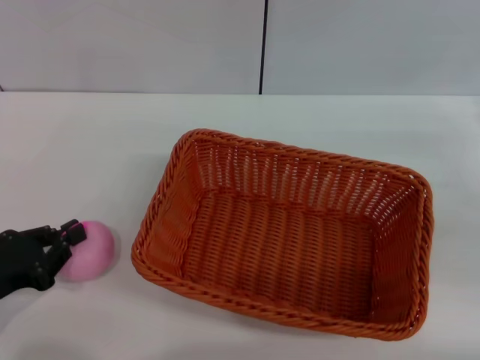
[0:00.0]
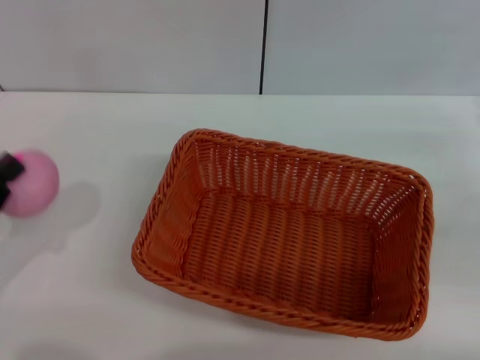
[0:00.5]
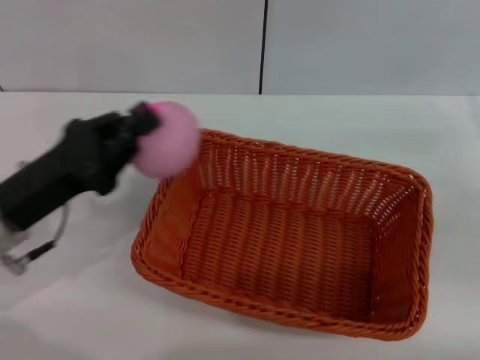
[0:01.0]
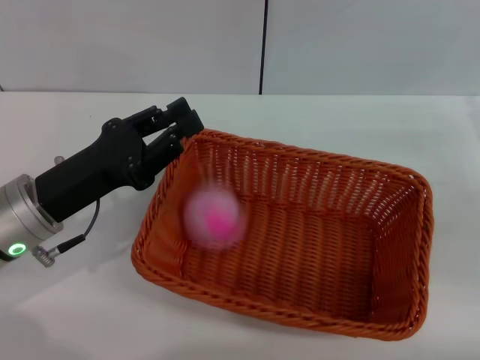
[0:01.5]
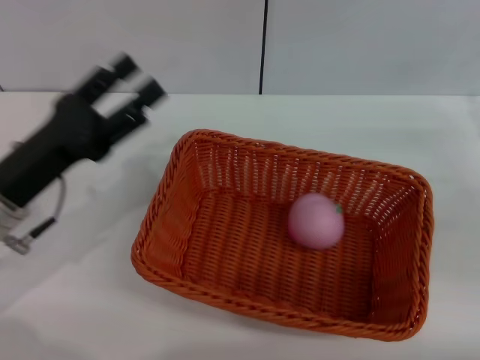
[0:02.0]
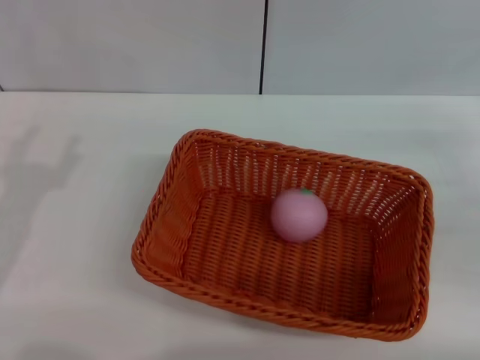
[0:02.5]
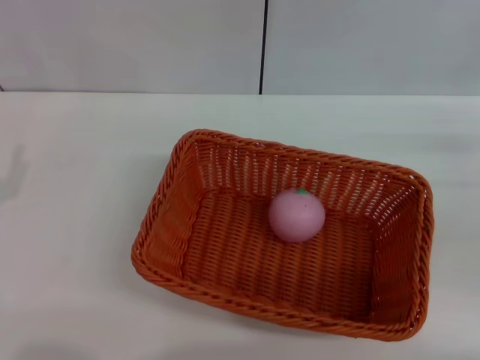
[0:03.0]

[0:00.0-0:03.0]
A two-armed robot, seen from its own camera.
Step, 0:01.0 to 0:01.5: Place the peach into the basket with the left gripper.
0:00.0 to 0:01.5: The left gripper shifts approximately 10 cm to the right and forward.
0:01.5 to 0:03.0: The left gripper goes approximately 10 cm to the left and backward, and opens its fingers.

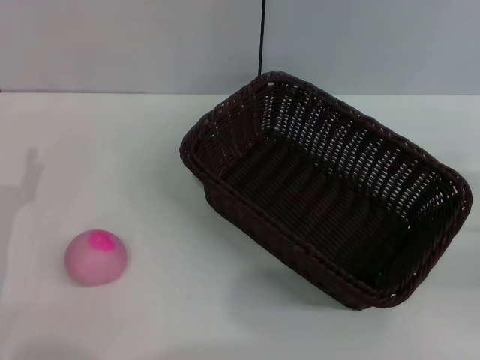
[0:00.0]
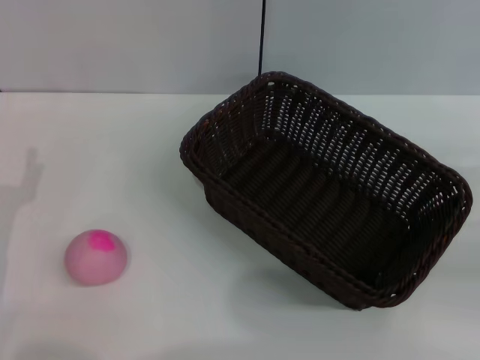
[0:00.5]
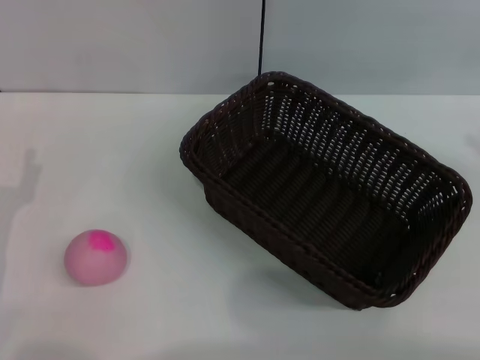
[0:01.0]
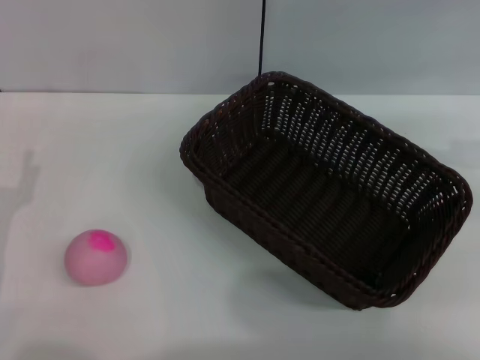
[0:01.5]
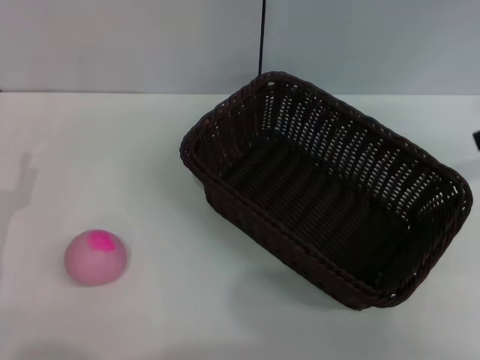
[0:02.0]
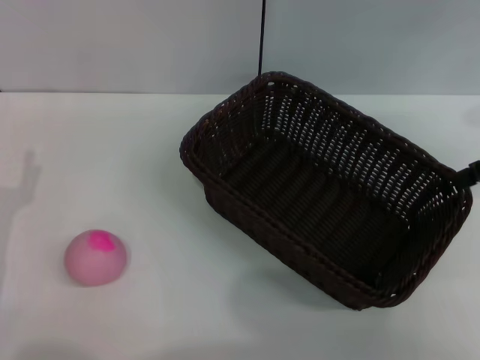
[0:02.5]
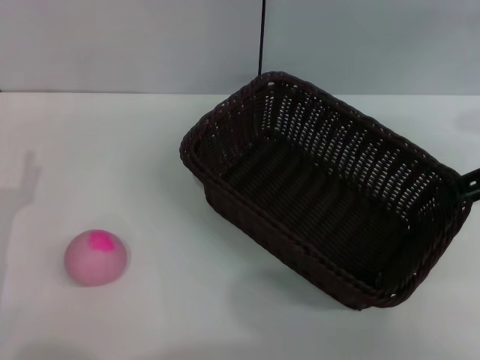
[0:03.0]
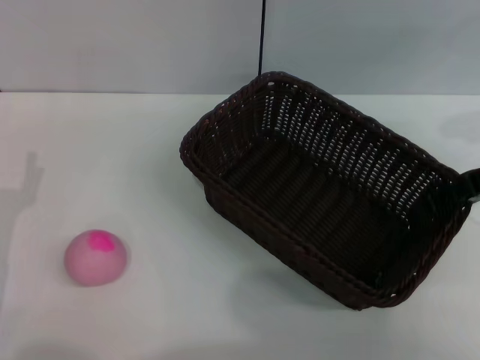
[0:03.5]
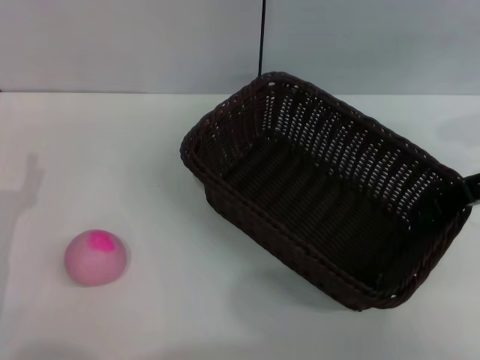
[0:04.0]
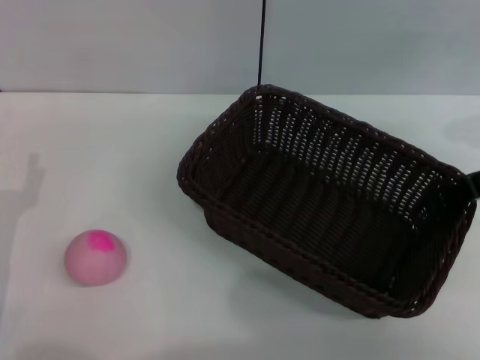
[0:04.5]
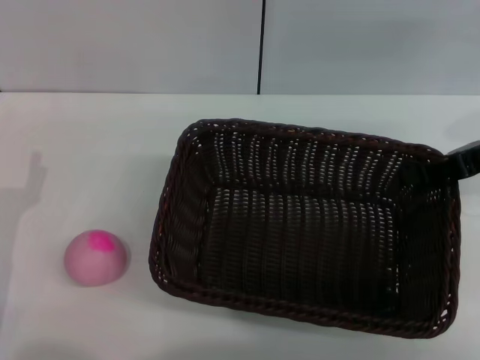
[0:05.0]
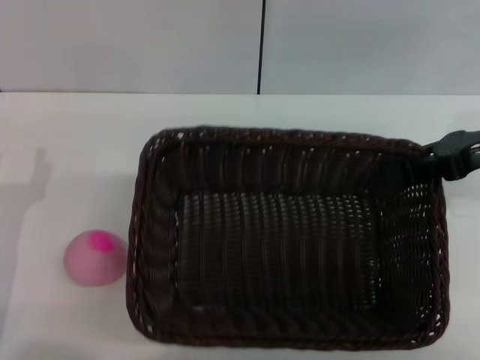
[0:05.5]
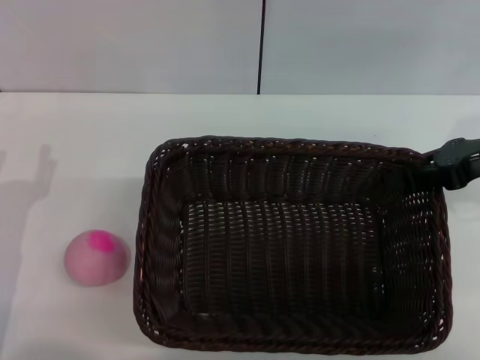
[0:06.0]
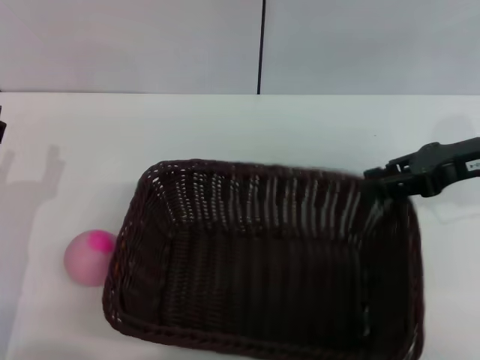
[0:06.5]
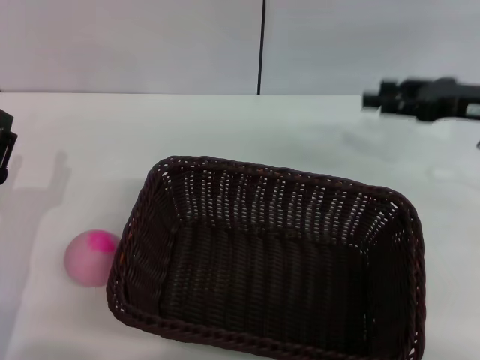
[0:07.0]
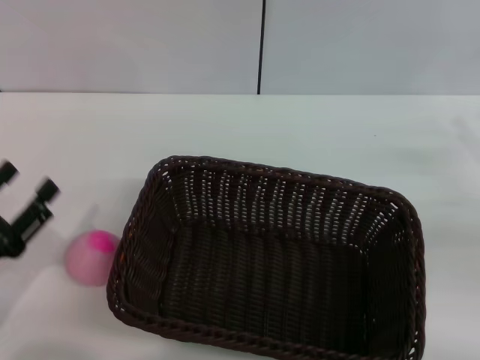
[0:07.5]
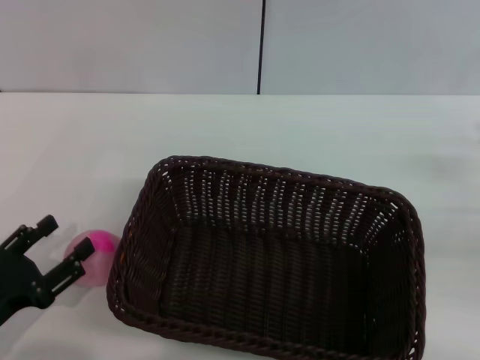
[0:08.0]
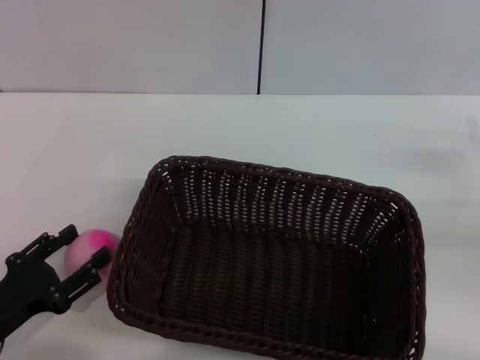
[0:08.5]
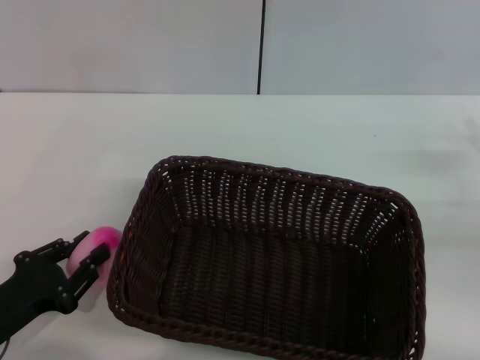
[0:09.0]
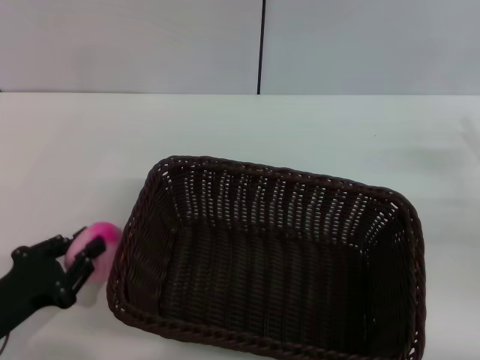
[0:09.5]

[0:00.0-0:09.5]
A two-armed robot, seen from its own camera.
Step, 0:00.0 to 0:05.0: Pick up the dark basket with the right gripper.
Step, 0:05.5 to 0:07.0: Place the dark basket in the center of view with the right gripper.
0:00.0 to 0:02.0: The right gripper is displaced upward and forward by some 20 cm, and opens.
0:02.0 to 0:04.0: The right gripper moves downward, roughly 10 cm, and closes up.
0:04.0 to 0:05.5: The right gripper closes its fingers.
0:05.5 to 0:07.5: The right gripper is displaced downward, backward and to the right by about 15 cm, and opens its fingers.
0:07.5 to 0:09.5: The left gripper closes.

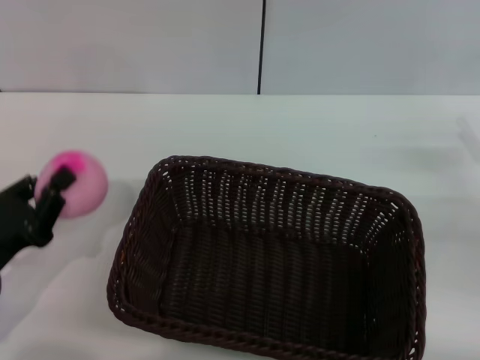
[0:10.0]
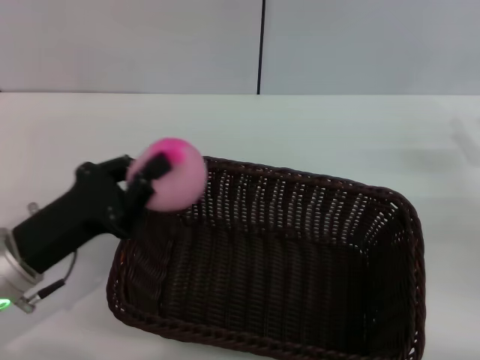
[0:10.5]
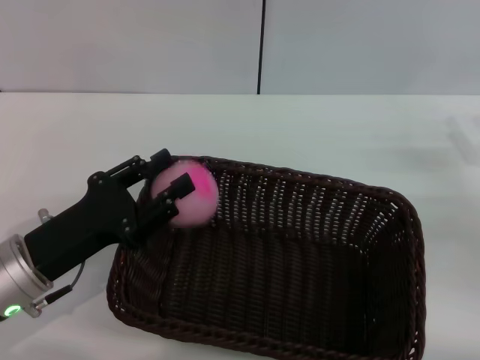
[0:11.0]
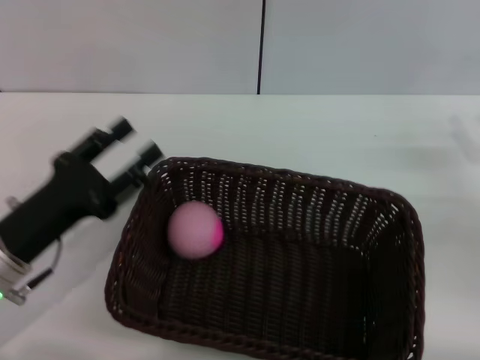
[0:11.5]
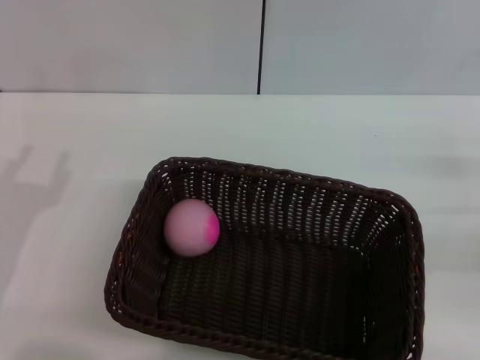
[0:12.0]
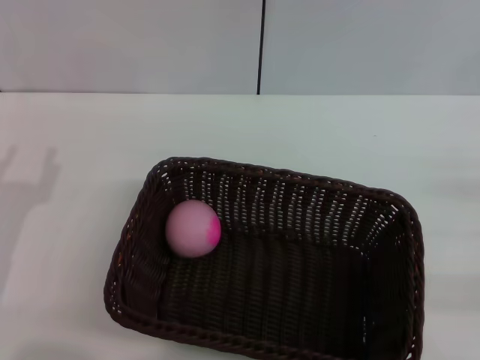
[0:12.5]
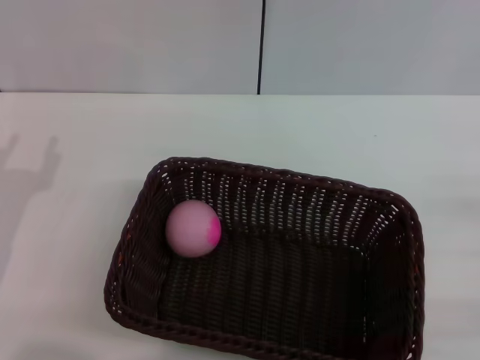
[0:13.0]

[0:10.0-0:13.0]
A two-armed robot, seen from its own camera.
Step, 0:10.5 to 0:11.5: Place the peach into the basket with the left gripper.
0:10.0 to 0:11.5: The left gripper ends up roughly 5 cm from where it was, and opens its fingers.
0:11.5 to 0:13.0: The right gripper travels backward by some 10 cm, while the left gripper travels to the left by some 5 cm.
